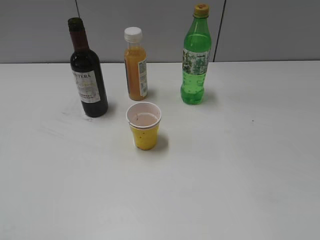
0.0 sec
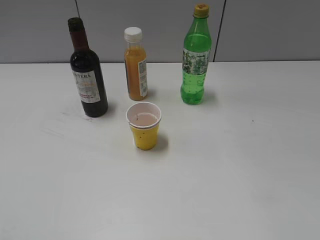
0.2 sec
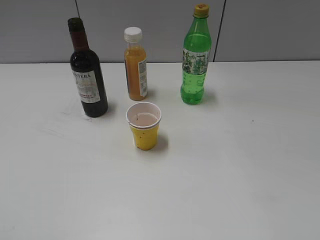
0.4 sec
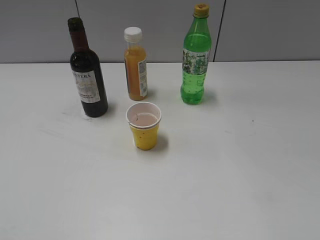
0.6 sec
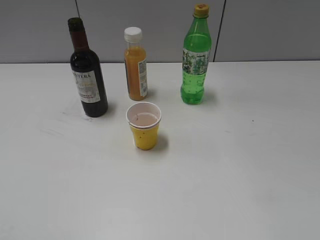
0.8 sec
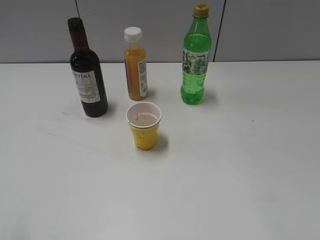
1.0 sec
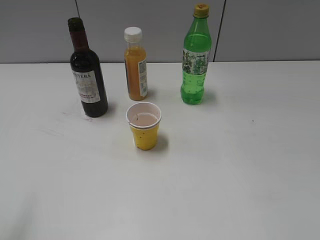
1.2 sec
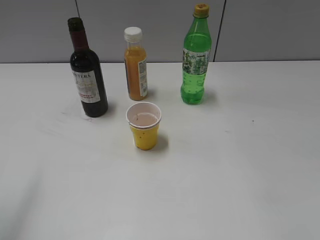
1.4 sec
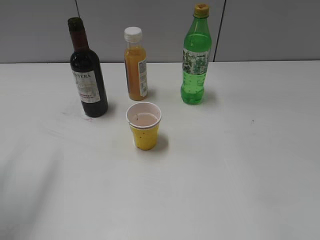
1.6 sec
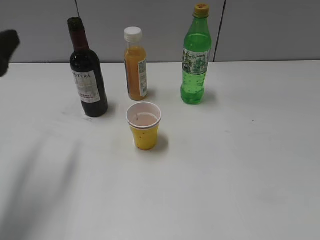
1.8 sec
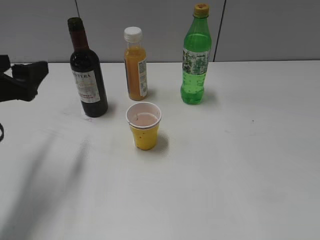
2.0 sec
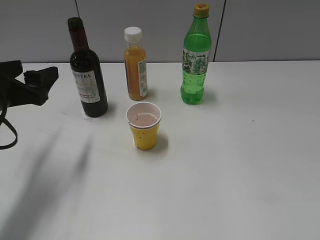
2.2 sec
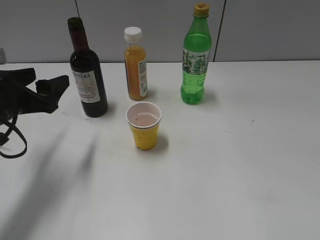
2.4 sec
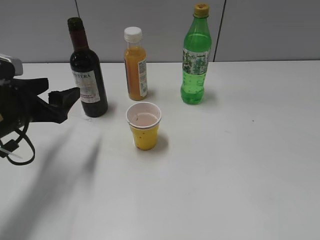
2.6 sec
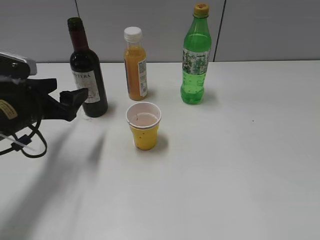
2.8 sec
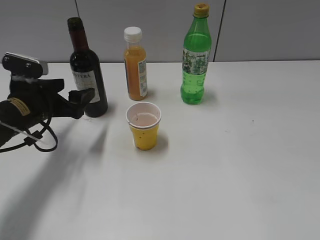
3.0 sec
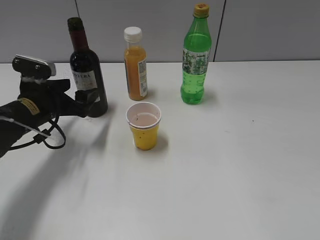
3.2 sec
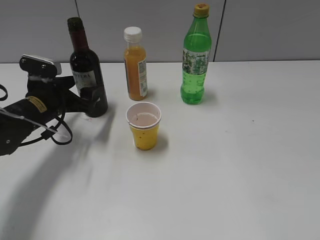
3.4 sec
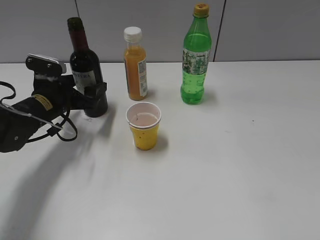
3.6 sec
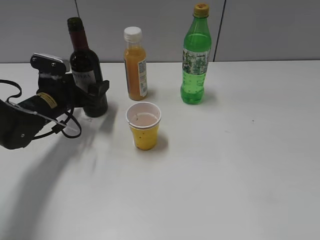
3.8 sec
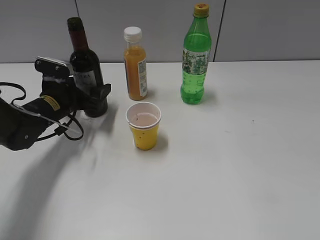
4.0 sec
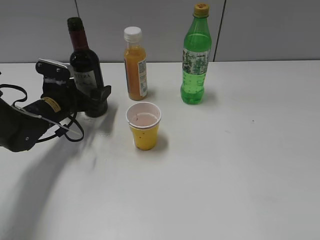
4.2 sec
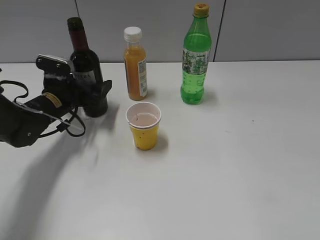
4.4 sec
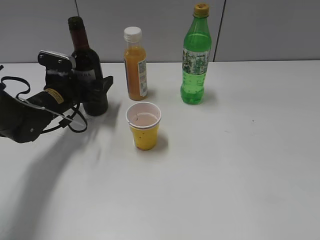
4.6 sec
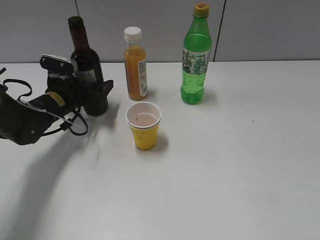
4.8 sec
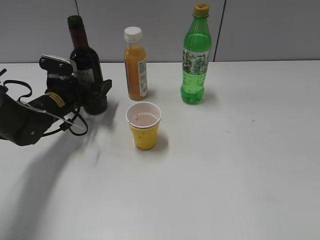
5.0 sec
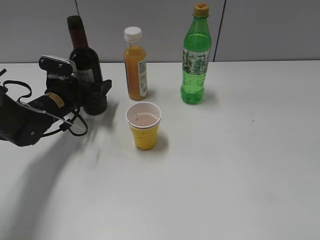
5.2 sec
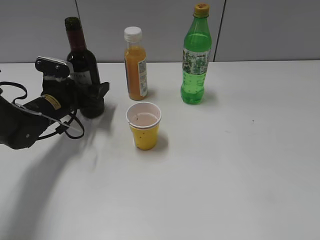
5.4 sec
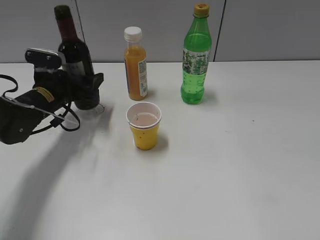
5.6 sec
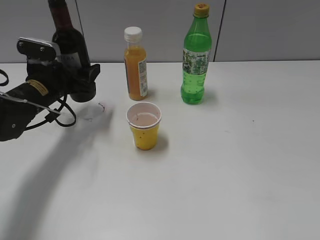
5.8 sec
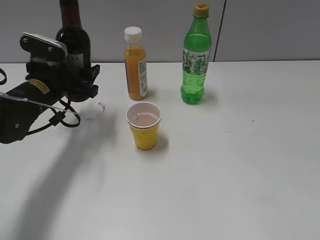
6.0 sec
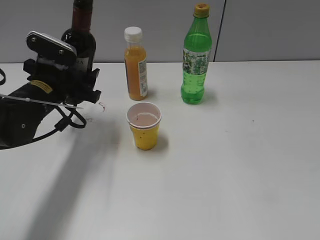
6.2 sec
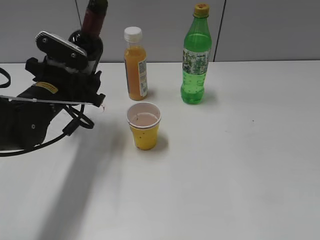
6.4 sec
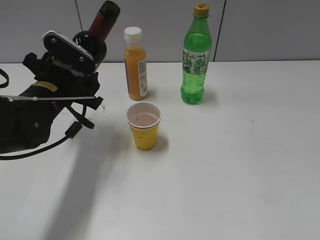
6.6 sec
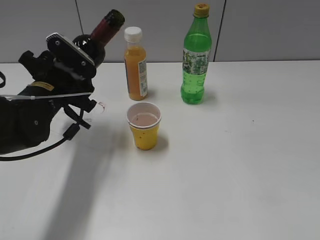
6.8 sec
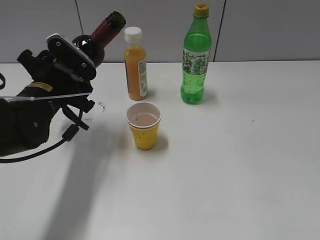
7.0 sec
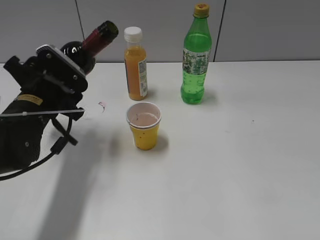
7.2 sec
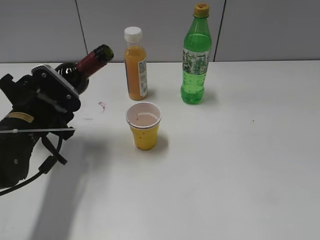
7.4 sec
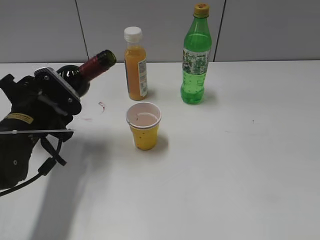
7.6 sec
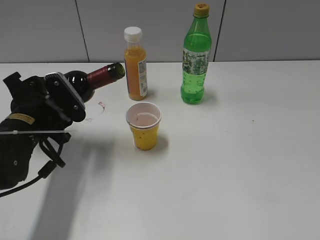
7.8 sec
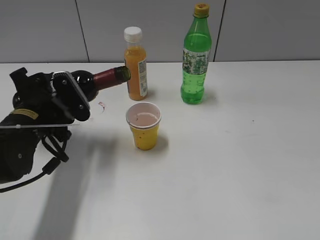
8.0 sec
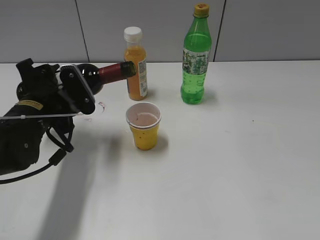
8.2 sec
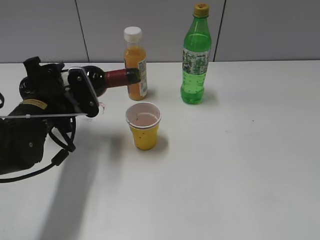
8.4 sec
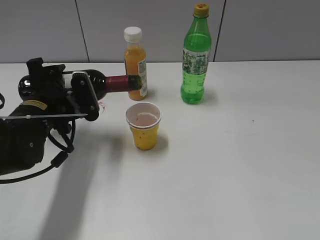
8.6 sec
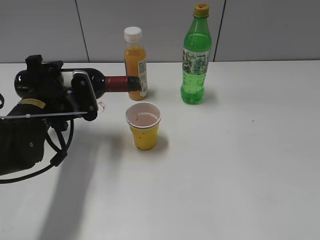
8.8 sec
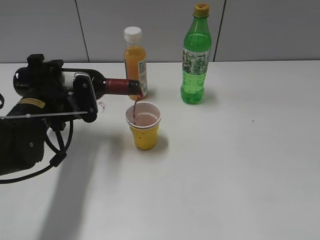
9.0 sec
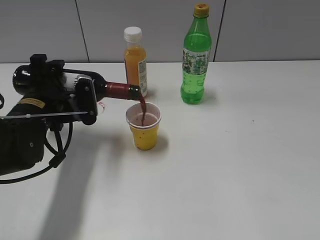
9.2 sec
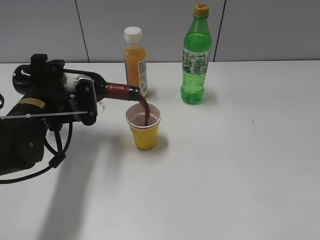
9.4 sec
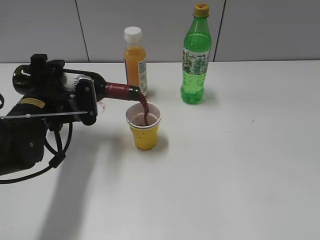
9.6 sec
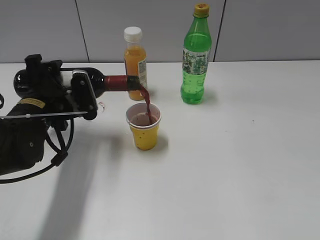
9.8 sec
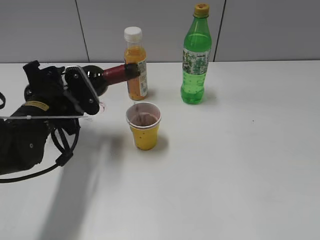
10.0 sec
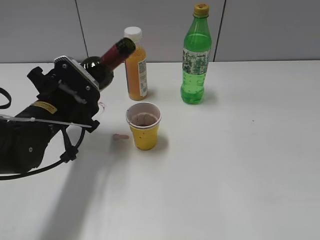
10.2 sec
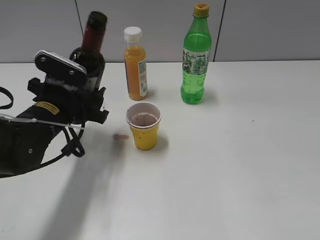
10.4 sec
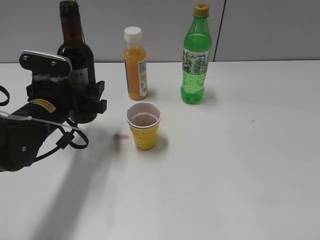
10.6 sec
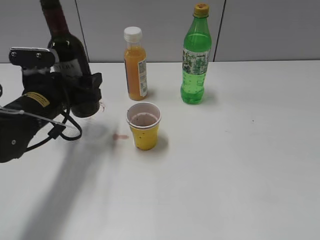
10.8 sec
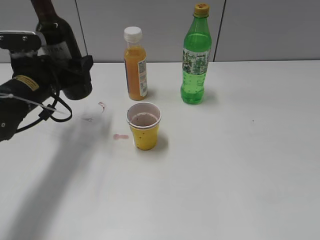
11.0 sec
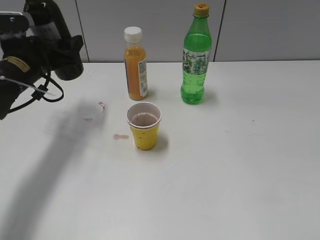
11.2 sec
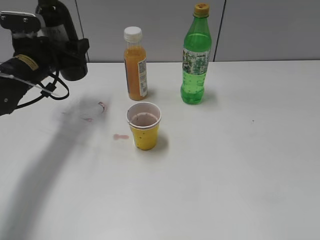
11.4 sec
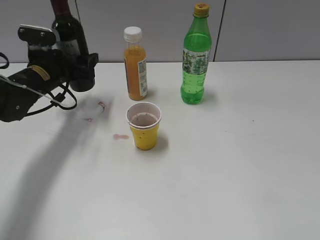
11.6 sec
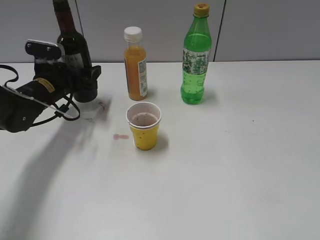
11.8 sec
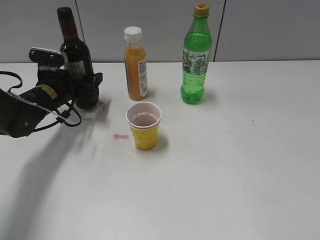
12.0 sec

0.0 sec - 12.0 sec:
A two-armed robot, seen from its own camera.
Step, 0.0 sec - 5.2 sec: Grasp the bottle with red wine with left gripper.
Step, 5.6 sec - 10.0 sec: Pour the red wine from bottle to cup with left gripper.
0.0 sec - 1.6 sec: The left gripper heads forward, covering approximately 20 cm.
1.6 sec - 3.0 sec: The left gripper heads downward, forward and to the right, covering roughly 20 cm, and opens up.
3.0 sec - 4.4 sec: The left gripper goes about 5 cm forward.
4.4 sec - 6.0 sec: The left gripper travels upward by some 5 cm, and closes its fingers.
6.0 sec - 7.6 sec: The left gripper goes approximately 10 cm backward.
10.4 sec - 12.0 sec: The left gripper travels forward by about 10 cm.

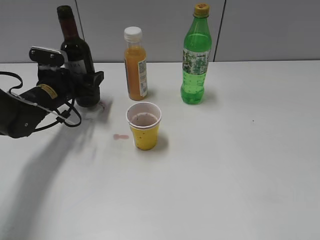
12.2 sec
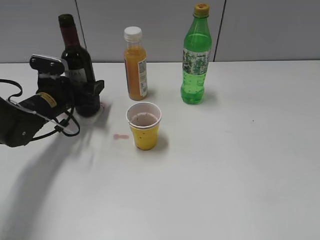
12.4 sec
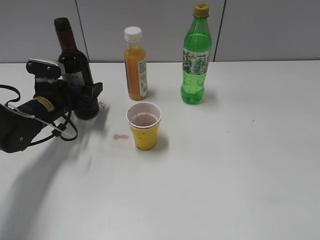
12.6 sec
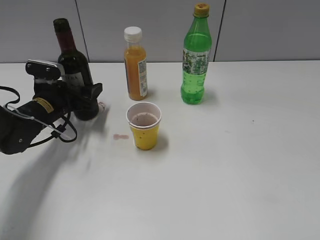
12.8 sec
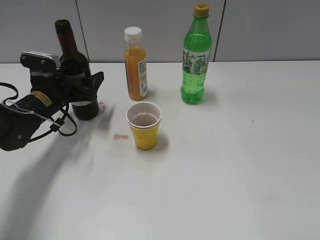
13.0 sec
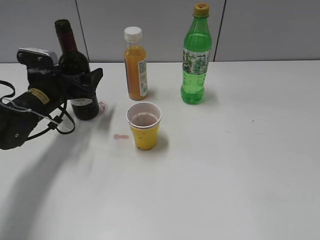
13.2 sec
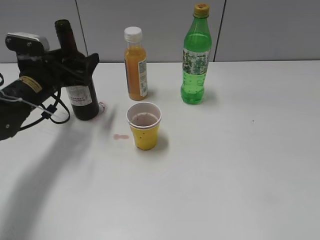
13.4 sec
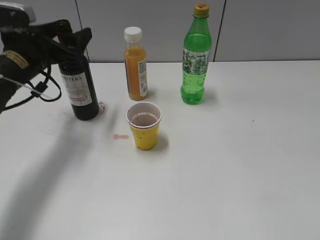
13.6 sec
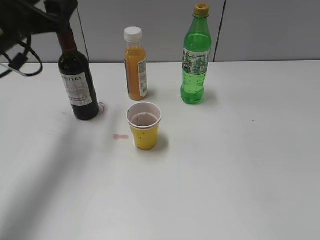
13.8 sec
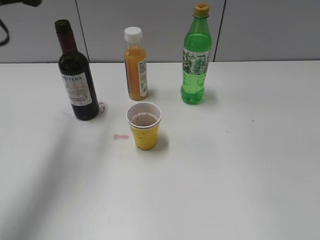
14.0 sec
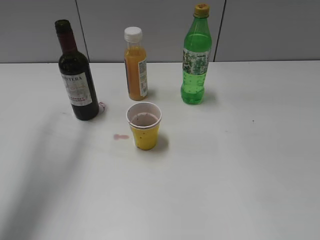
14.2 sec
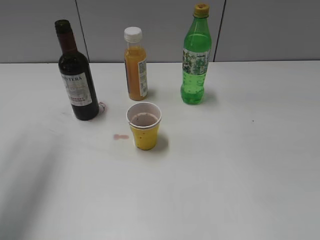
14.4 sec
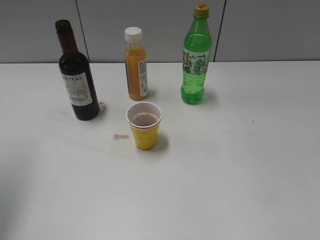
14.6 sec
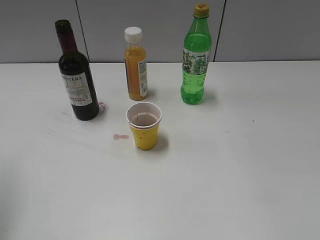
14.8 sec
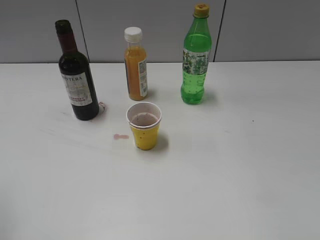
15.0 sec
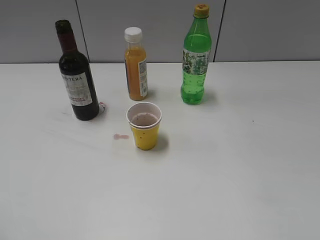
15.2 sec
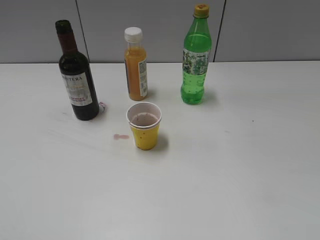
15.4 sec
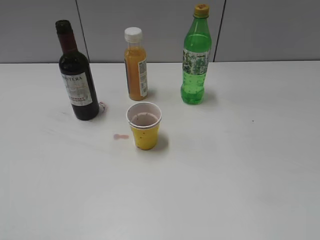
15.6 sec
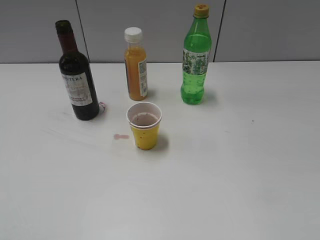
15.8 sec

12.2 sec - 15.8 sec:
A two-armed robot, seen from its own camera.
12.2 sec - 14.0 sec: The left gripper moves upward, about 20 cm, and opens its fingers.
14.0 sec - 15.8 sec: The left gripper is displaced backward by roughly 30 cm, and closes its fingers.
